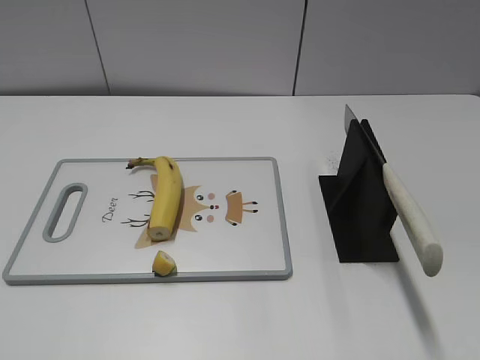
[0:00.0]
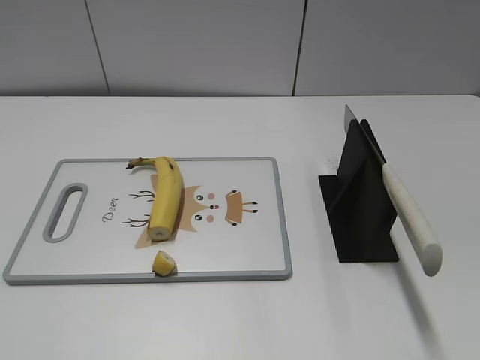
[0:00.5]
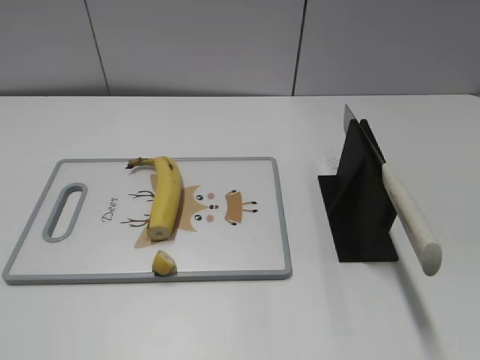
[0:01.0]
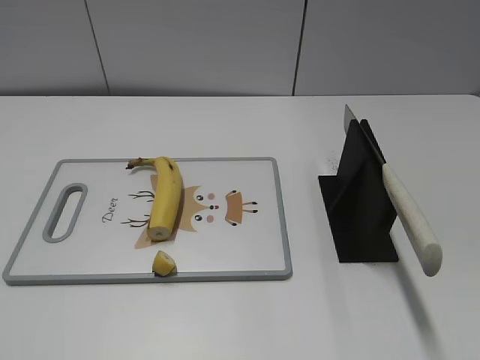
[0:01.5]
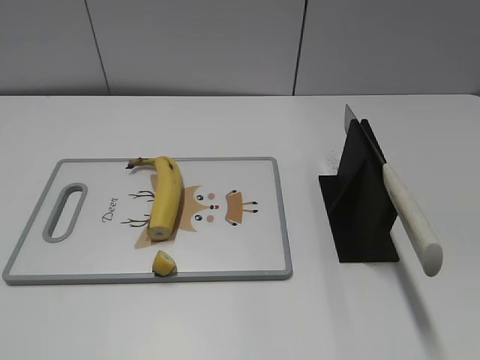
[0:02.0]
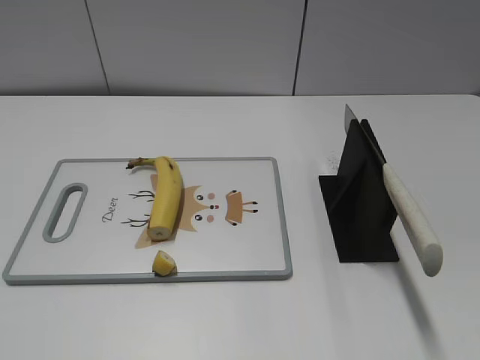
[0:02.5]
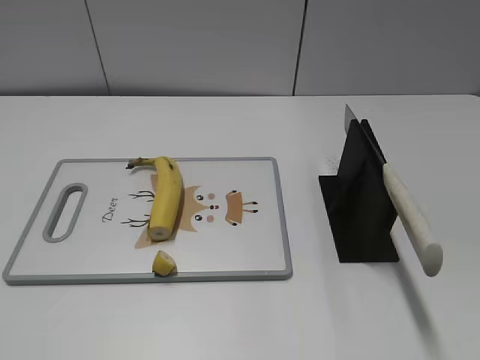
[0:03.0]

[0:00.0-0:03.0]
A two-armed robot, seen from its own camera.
Task of the whole recording: cut banana.
0:01.5 to 0:03.0: Both grippers stay about where they are.

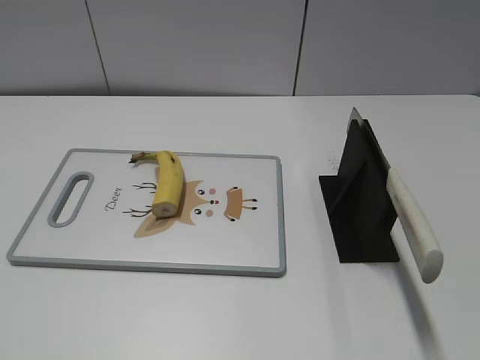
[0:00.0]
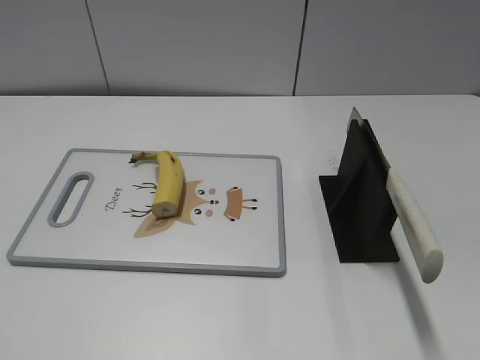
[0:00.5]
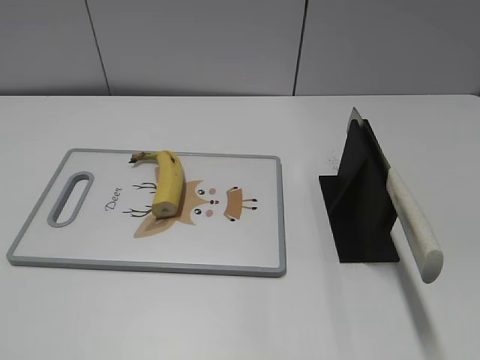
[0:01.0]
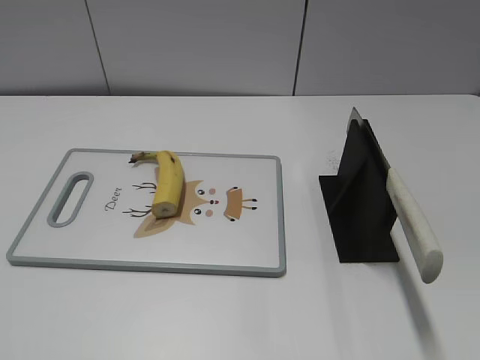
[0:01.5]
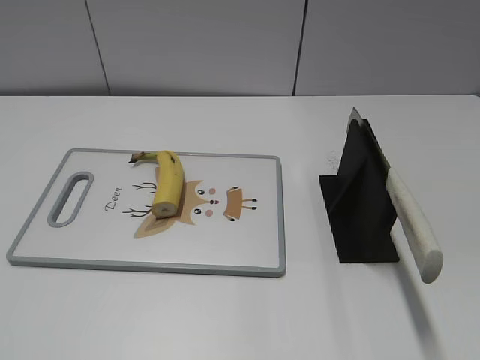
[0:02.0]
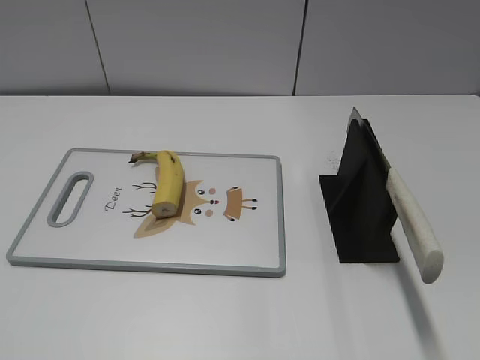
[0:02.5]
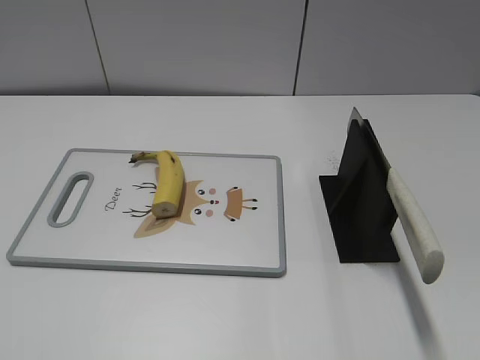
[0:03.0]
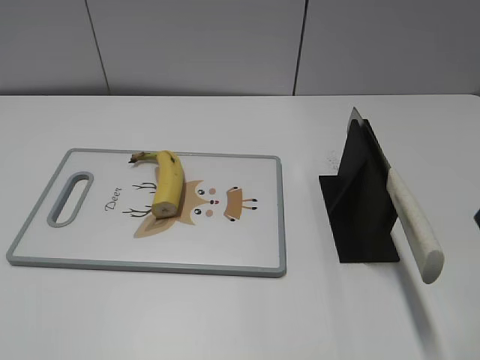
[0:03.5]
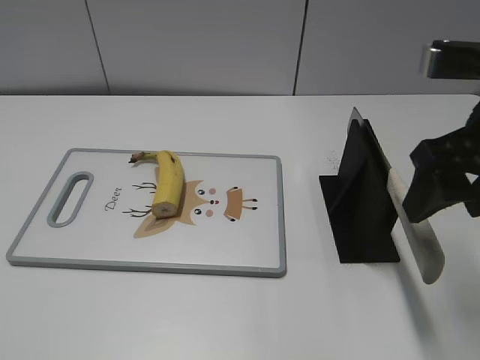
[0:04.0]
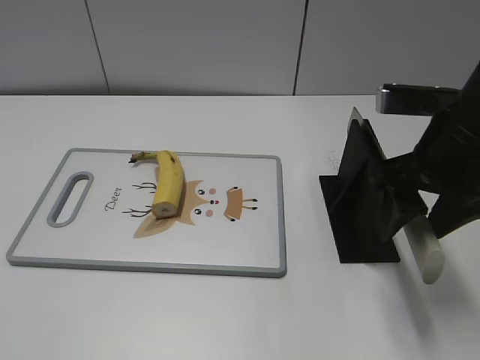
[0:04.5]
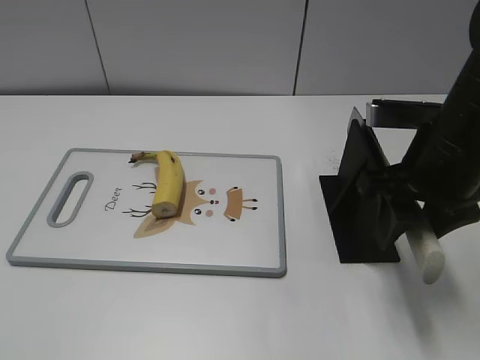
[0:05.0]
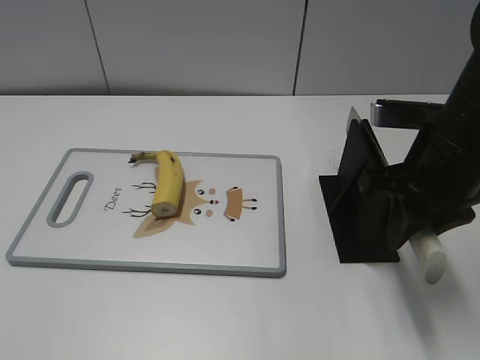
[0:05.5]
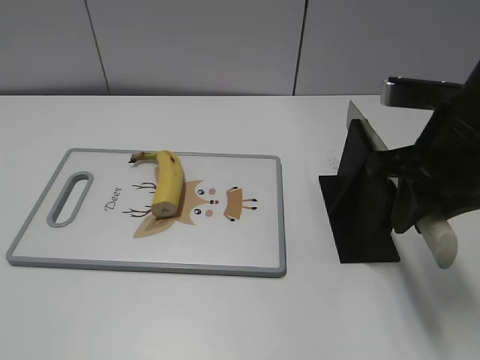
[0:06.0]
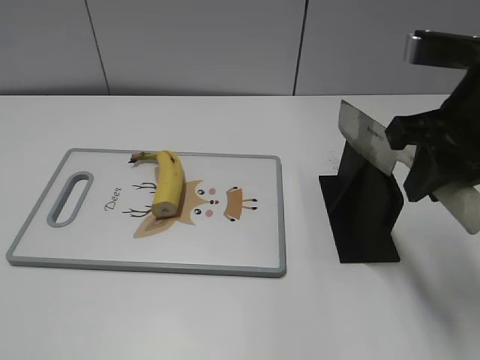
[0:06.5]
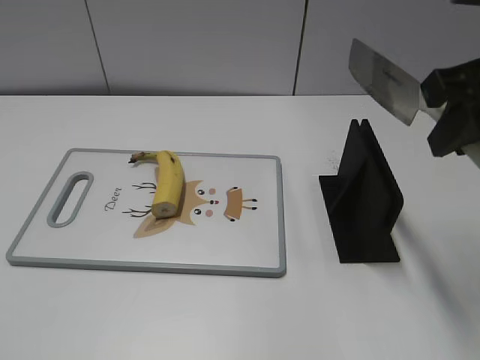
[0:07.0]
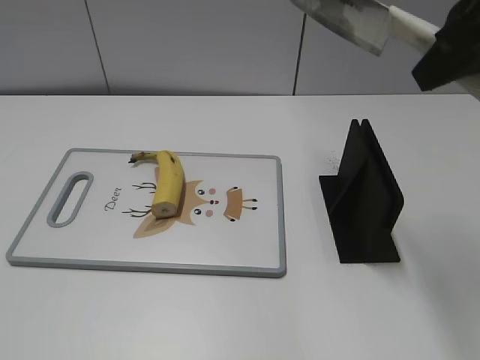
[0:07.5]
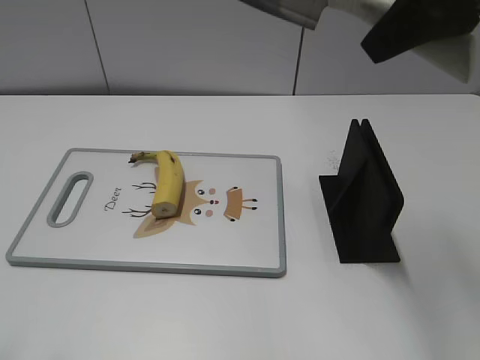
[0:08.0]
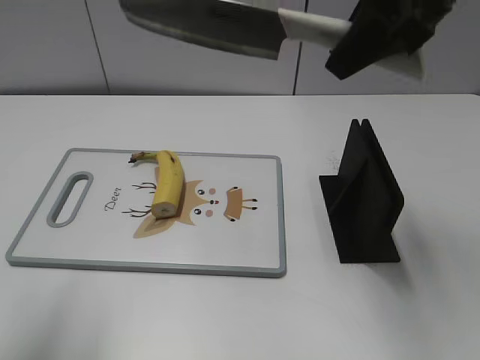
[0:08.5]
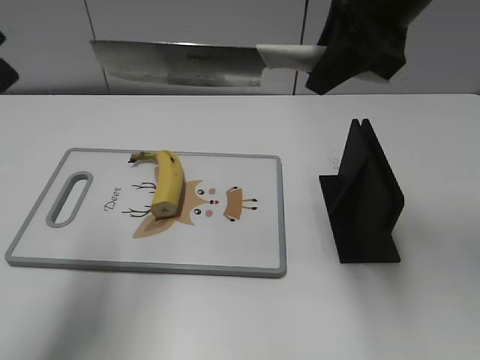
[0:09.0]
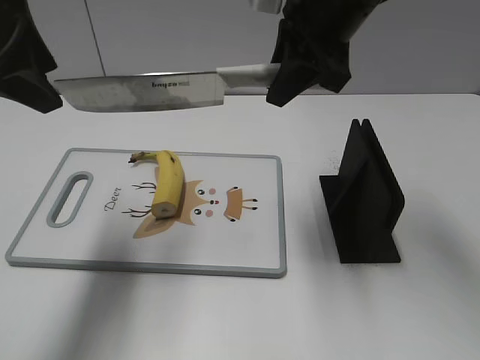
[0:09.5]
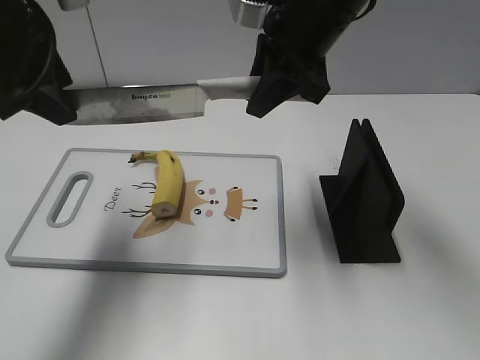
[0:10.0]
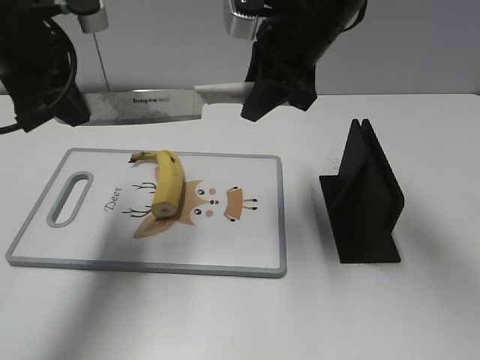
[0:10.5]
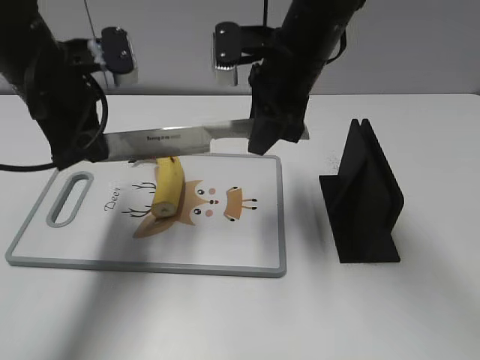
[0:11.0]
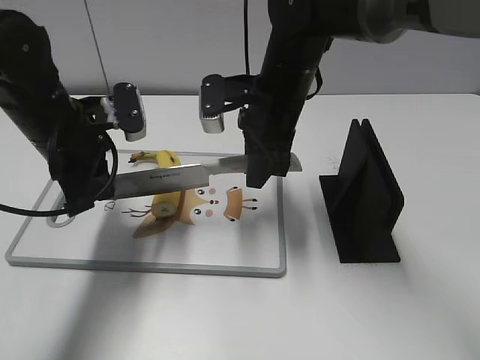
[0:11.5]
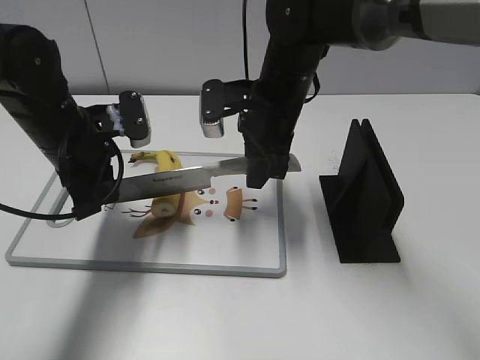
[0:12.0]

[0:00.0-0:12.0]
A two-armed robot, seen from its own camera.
Task of the whole recording: cut banana.
Step, 0:00.0 to 0:07.0: Grab the knife handle with your right hand.
0:02.0 to 0:04.0: The right gripper heads forward and to the left, covering some 25 cm.
0:04.0 to 0:06.0: The right gripper ends up about 5 cm from where it was, and closes.
0:06.0 to 0:08.0: The left gripper moves forward and upward, about 10 cm, while the right gripper travels upward by about 15 cm.
0:08.0 to 0:10.0: The right gripper moves forward, downward and to the left, about 15 cm. Meanwhile the left gripper goes roughly 25 cm forward.
0:10.0 to 0:12.0: Both grippers move downward, roughly 15 cm. The left gripper closes up.

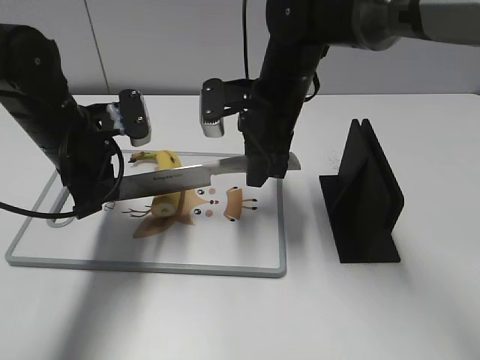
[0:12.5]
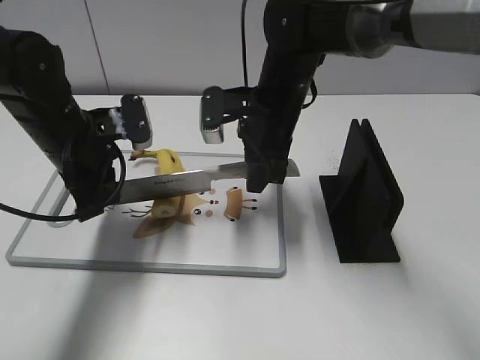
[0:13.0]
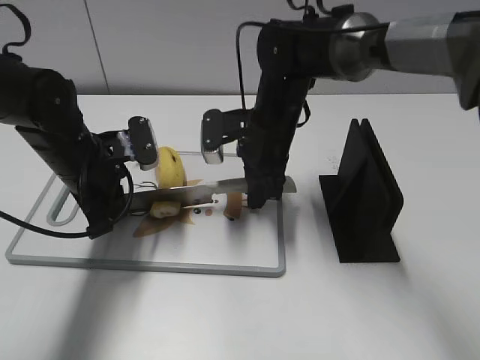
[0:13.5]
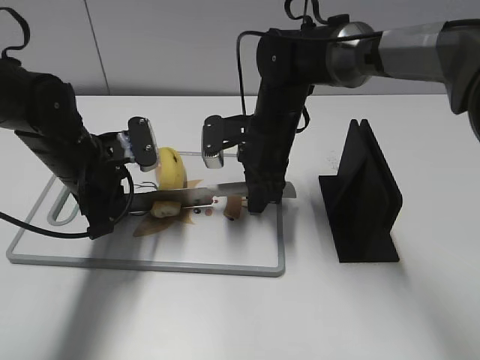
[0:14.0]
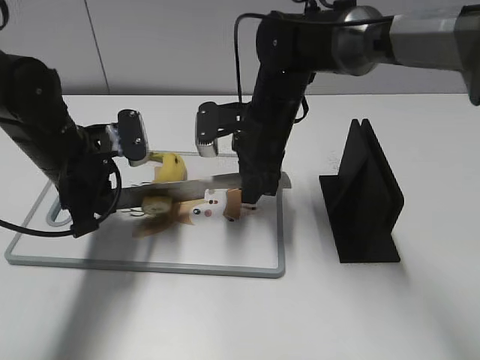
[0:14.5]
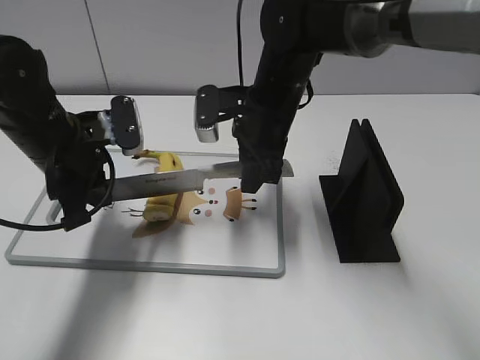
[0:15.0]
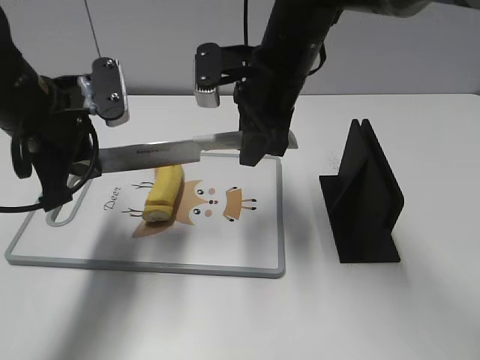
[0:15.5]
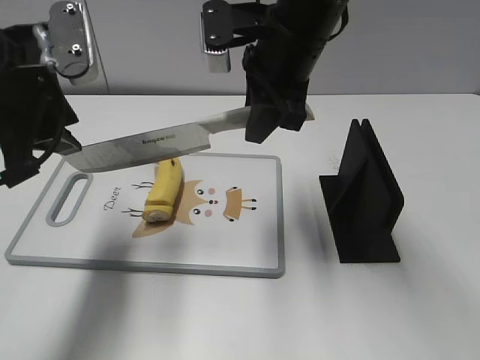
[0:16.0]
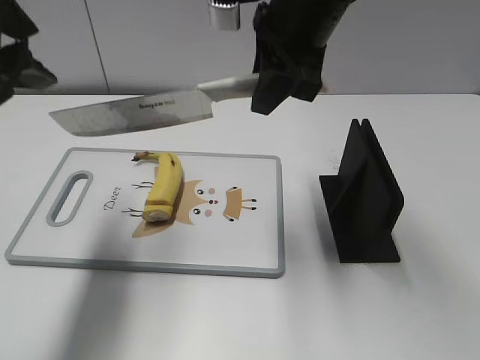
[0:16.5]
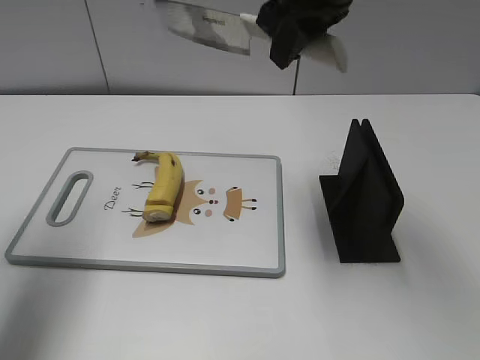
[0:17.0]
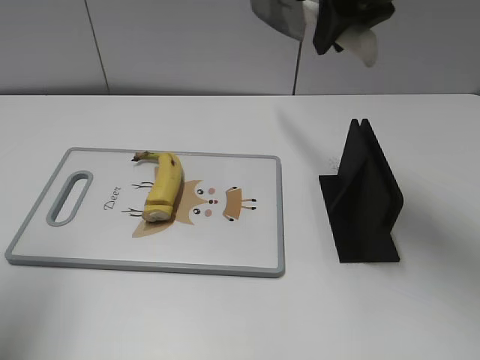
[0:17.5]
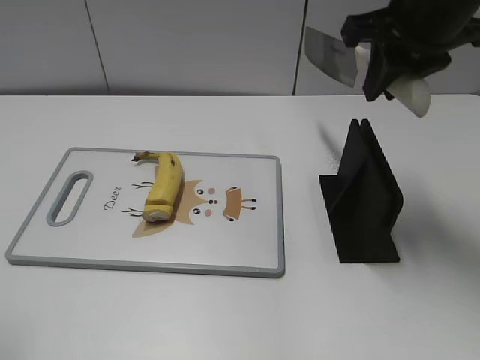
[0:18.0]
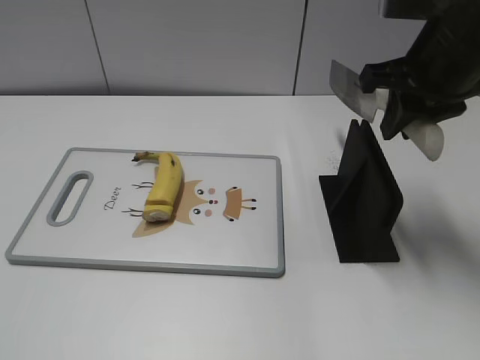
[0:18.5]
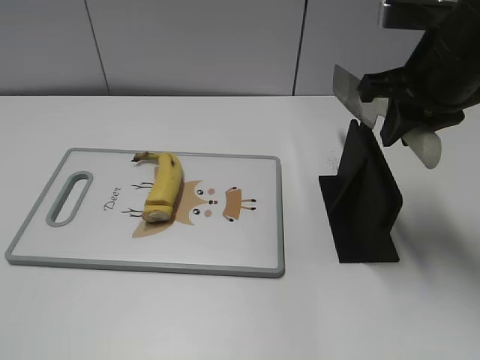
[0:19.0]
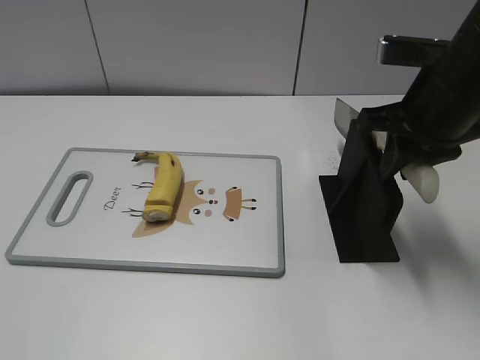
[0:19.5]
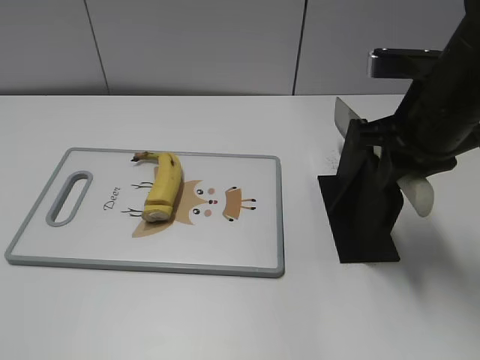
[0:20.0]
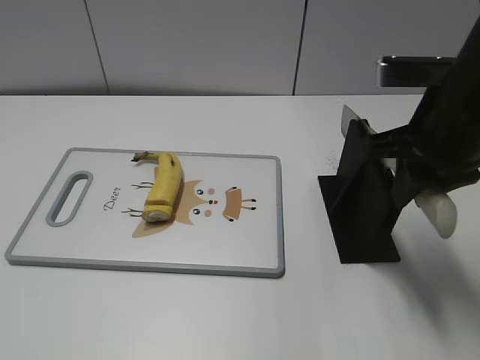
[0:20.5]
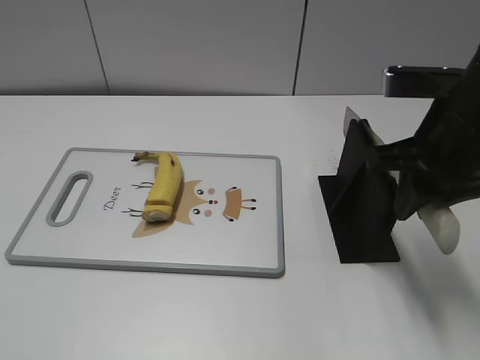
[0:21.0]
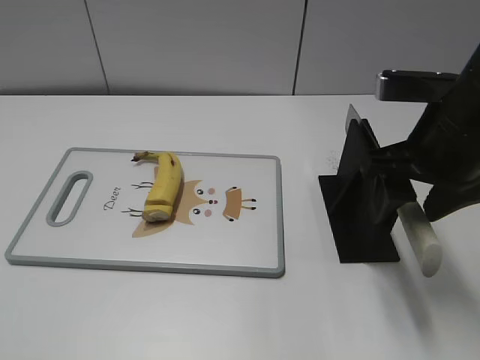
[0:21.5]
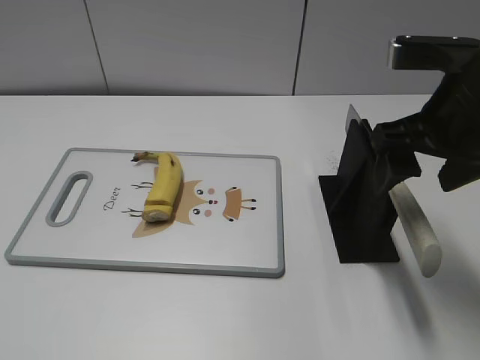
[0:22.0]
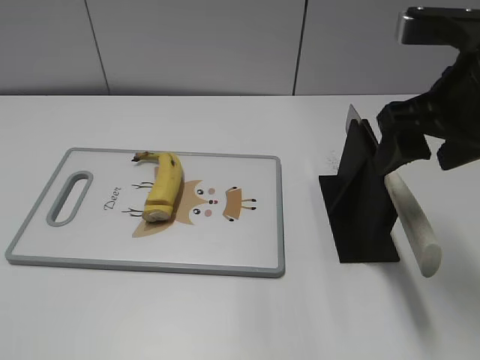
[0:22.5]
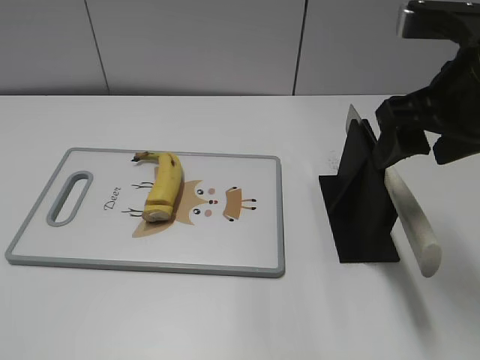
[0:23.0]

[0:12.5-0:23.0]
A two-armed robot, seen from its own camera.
Task of the whole recording: cut banana.
Step, 0:13.5 to 0:17.5: Cut the banana with your right hand.
Step, 0:18.0 to 0:19.5: Lift the knife with your right hand.
0:12.5 to 0:14.5: The grippers make only small movements.
0:14.5 to 0:16.5: The grippers both shift upward by about 20 cm. The left gripper opens its fingers.
0:16.5 to 0:19.0: The left gripper heads backward, covering roughly 25 cm; the right gripper moves to the right, some 15 cm.
0:19.0 to 0:21.0: The right gripper is displaced backward by roughly 5 cm.
0:21.0 to 0:23.0: The right gripper opens up.
